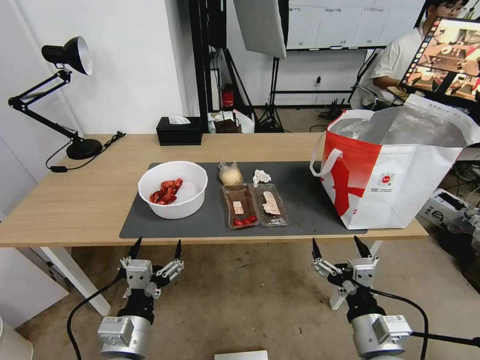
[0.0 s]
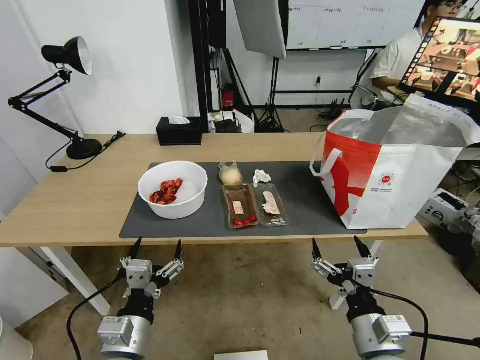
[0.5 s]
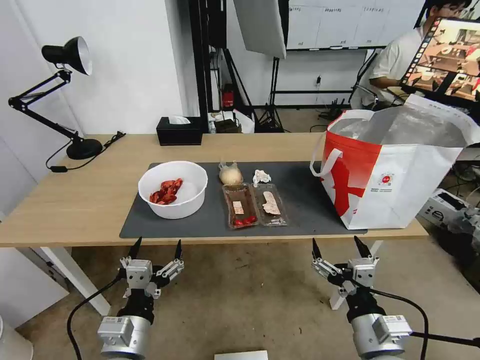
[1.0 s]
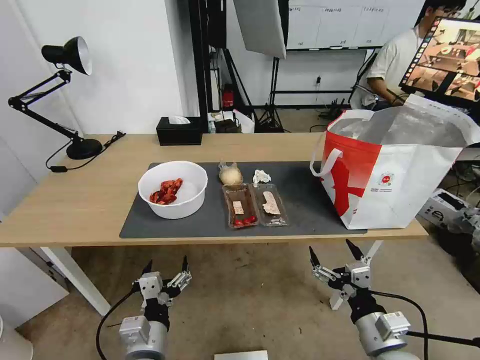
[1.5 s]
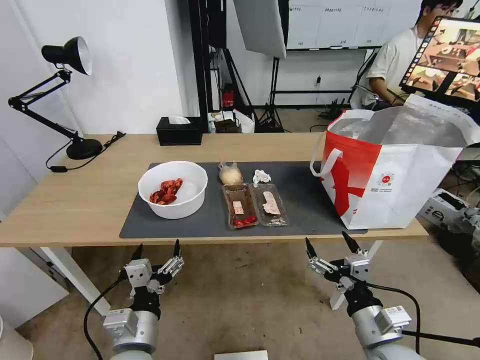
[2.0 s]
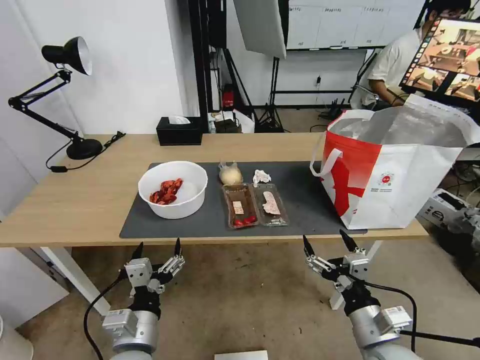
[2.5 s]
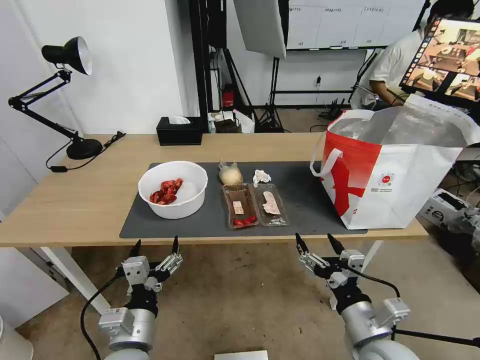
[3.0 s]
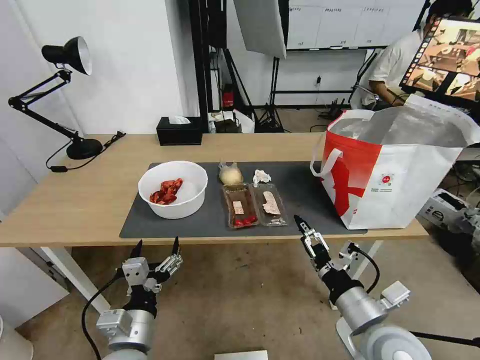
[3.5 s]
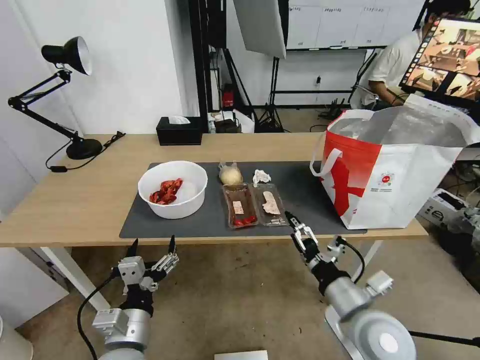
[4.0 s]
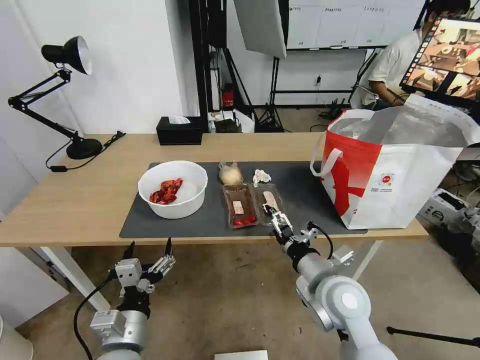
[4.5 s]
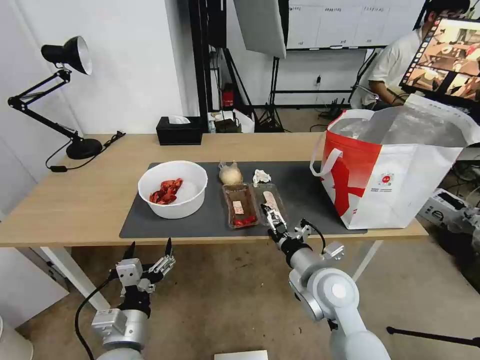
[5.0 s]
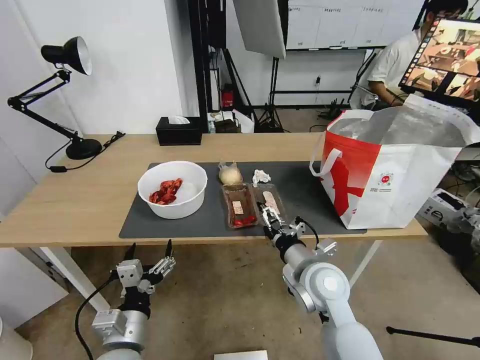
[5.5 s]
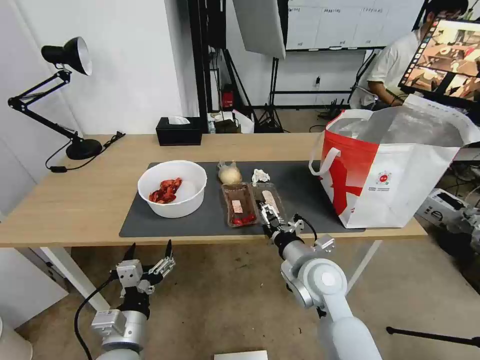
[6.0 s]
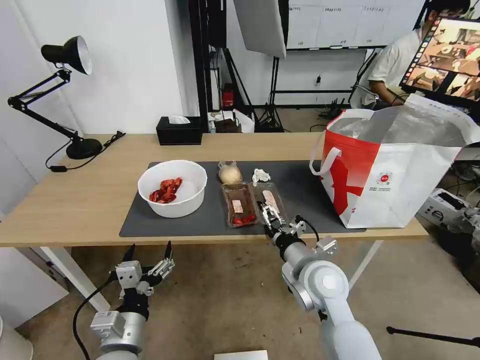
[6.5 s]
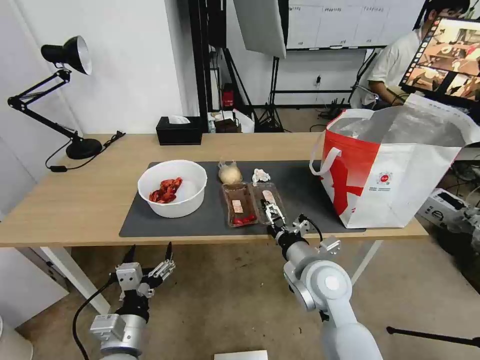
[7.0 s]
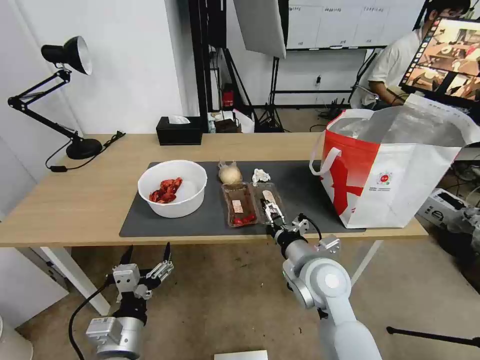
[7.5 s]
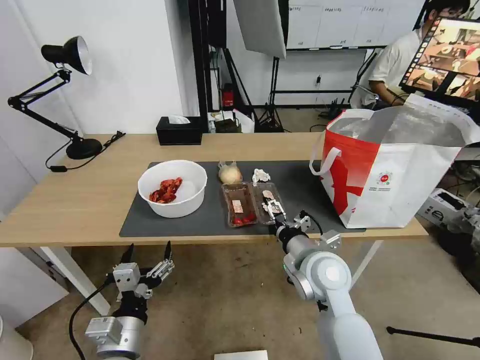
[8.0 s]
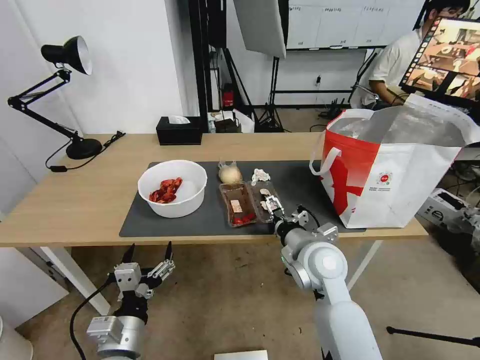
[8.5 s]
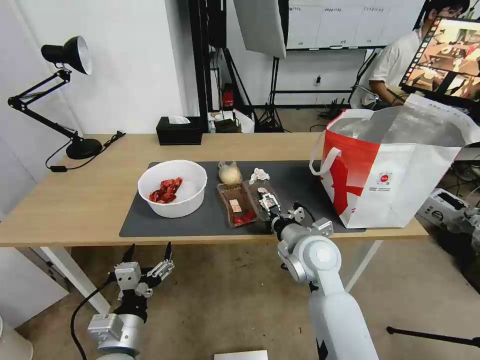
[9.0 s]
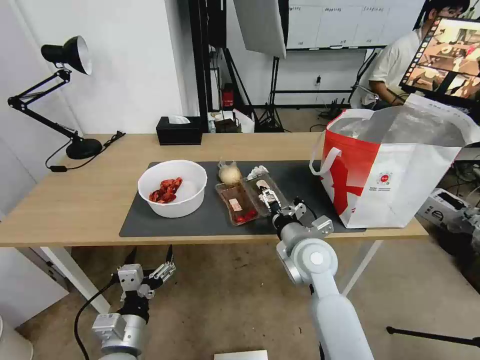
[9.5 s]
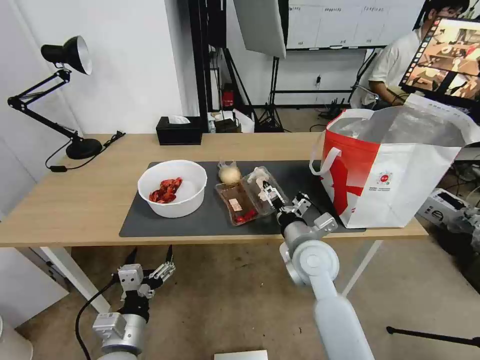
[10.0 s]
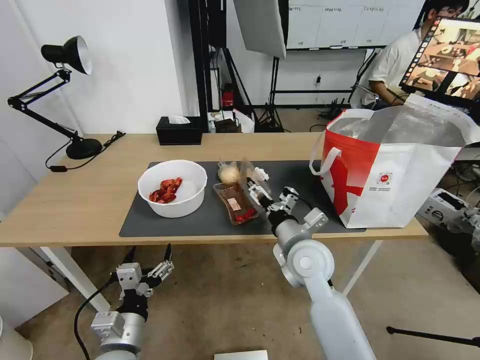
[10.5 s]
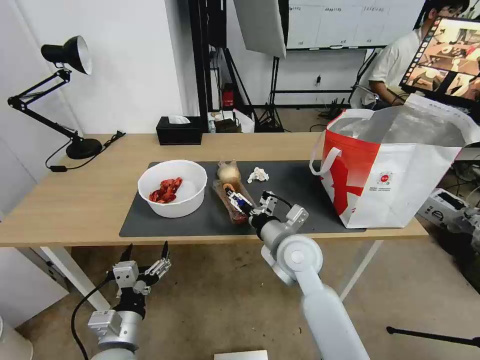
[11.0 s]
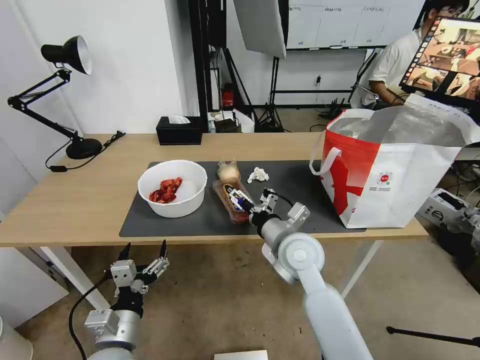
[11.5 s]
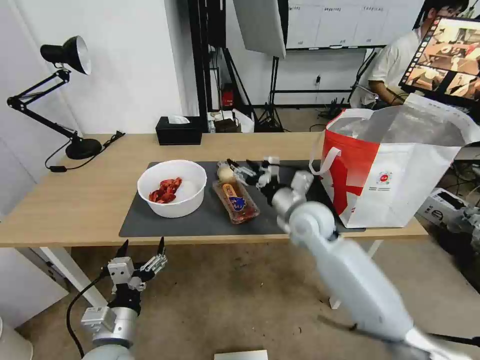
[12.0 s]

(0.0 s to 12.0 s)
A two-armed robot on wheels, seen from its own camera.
Task of the whole recording: Pick up the trash from the table and place it into the takeout bag.
2.0 s - 4.0 s: The right gripper moves some 5 cm.
4.0 s - 6.0 s: The right gripper heads forward and to the left, covering about 10 cm.
6.0 s - 8.0 s: The grippers make only small movements.
10.0 s - 12.0 s: The right gripper moves forward, approximately 10 cm.

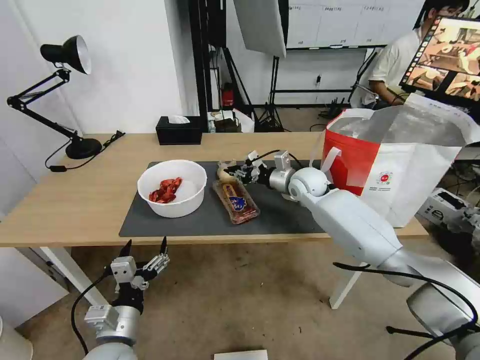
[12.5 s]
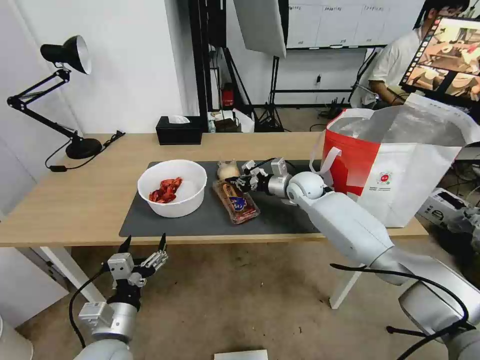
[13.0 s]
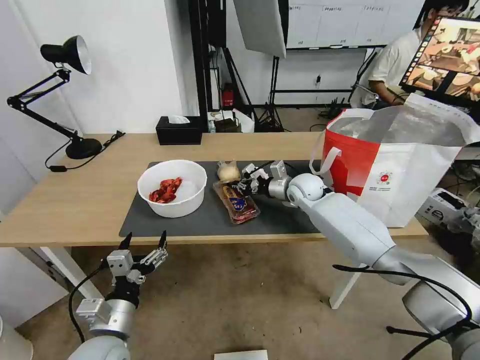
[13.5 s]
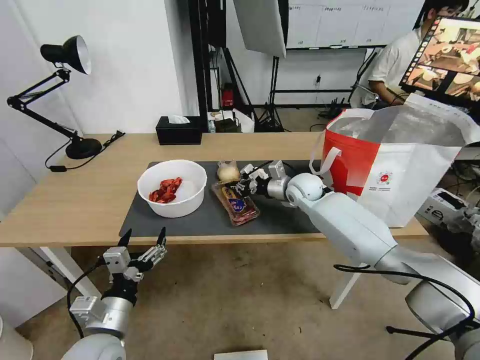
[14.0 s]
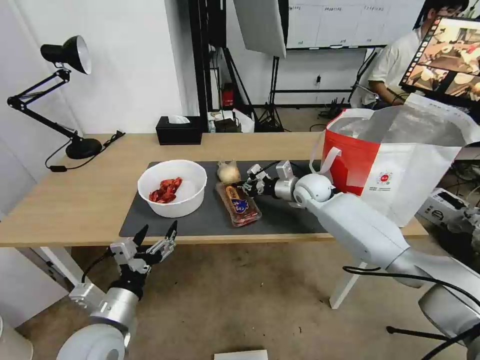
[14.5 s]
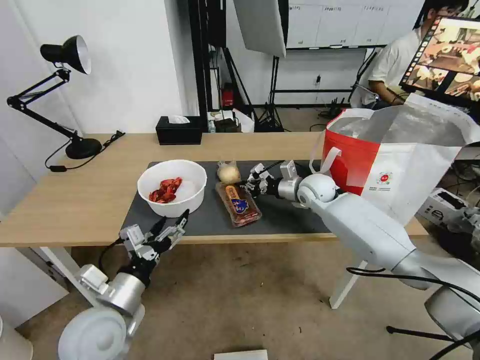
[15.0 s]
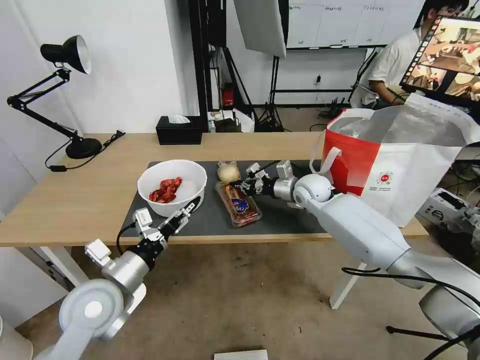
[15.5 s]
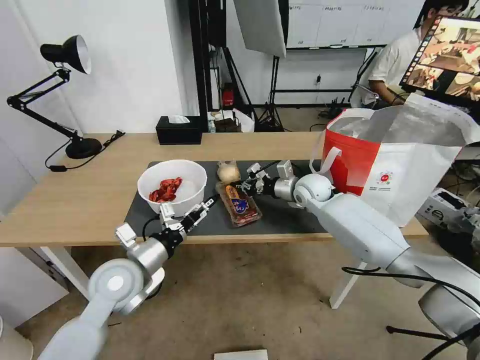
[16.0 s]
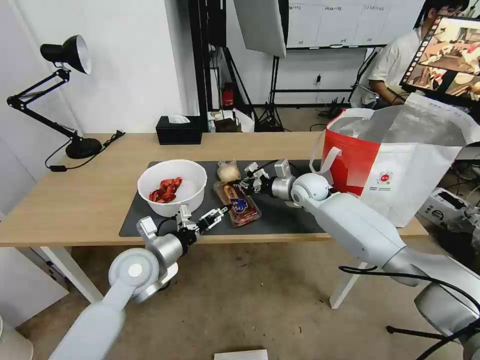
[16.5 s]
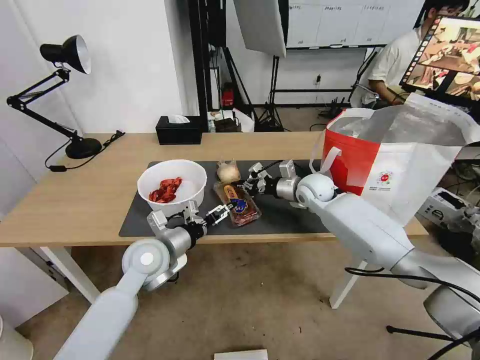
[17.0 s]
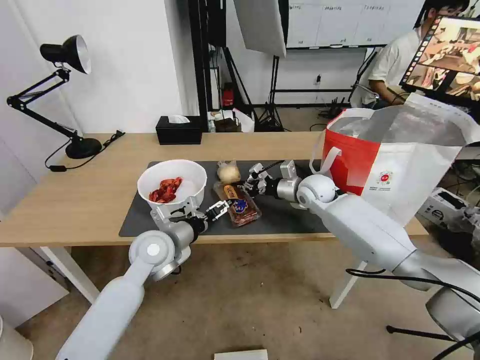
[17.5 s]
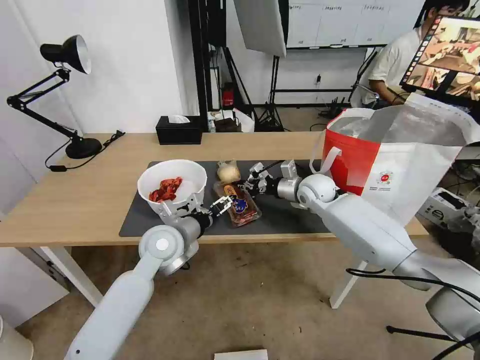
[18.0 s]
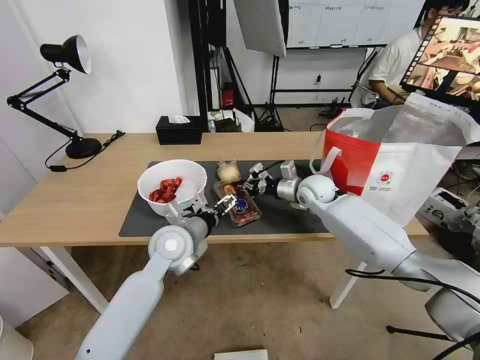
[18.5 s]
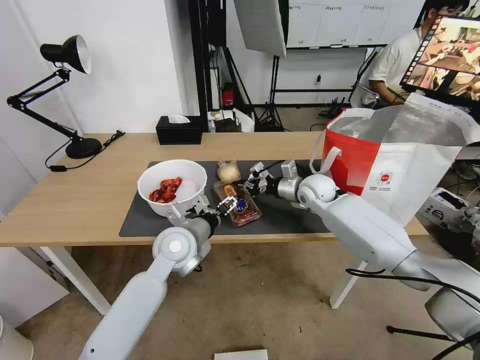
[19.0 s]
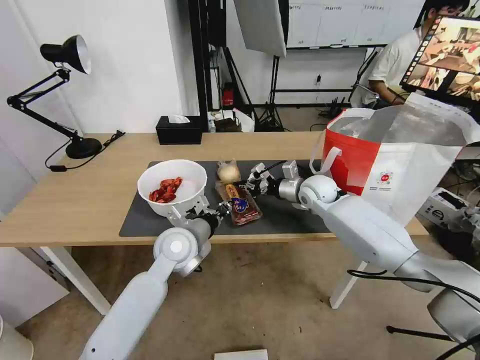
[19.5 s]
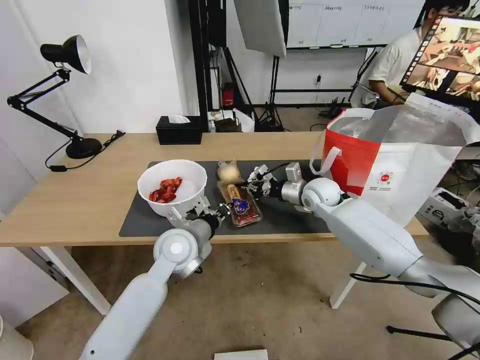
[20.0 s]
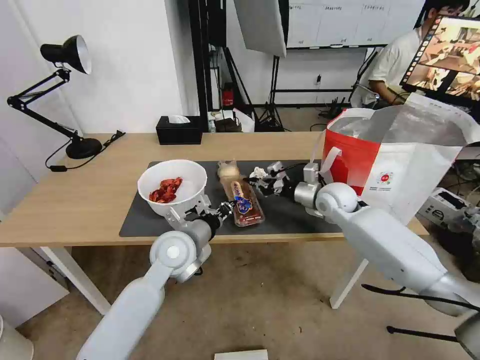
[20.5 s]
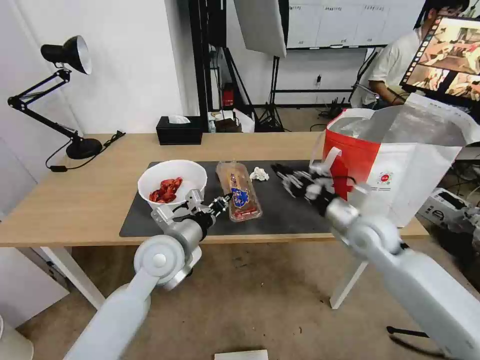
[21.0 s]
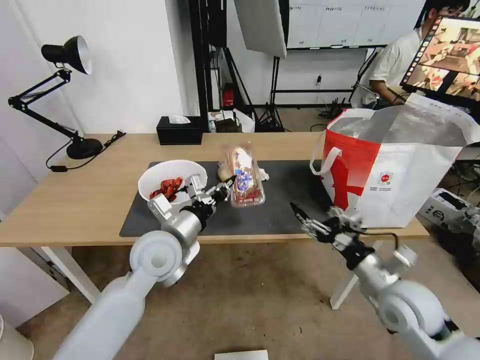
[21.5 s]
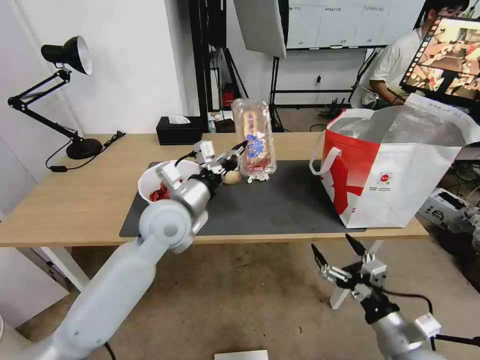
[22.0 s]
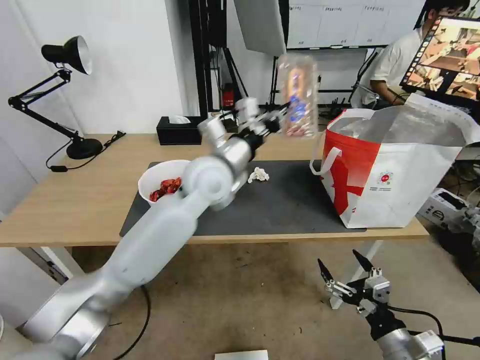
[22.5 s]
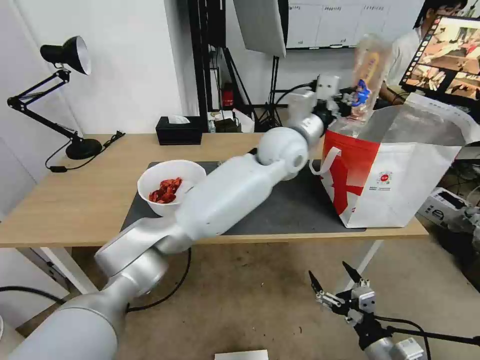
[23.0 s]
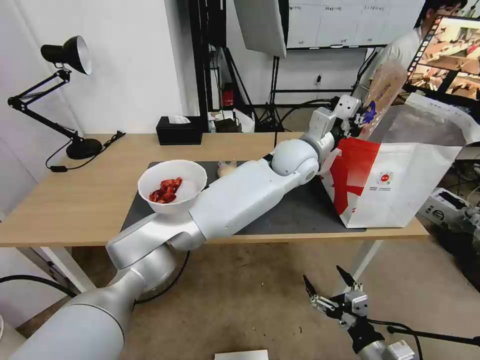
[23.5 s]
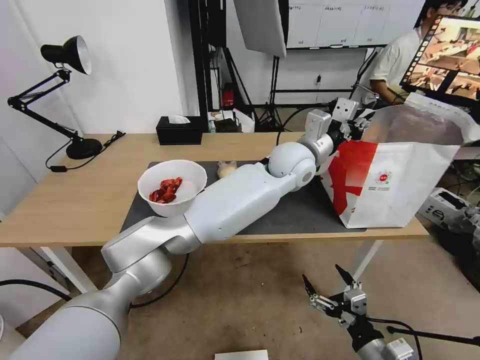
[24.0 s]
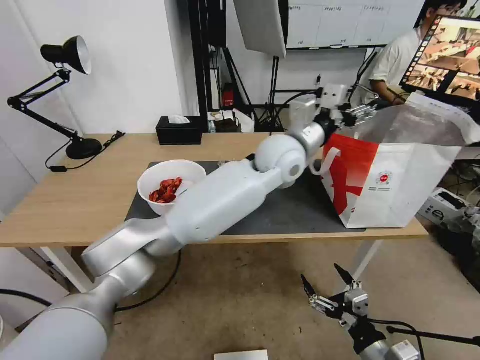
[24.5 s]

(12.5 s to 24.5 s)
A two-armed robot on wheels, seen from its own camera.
Task of the whole recording: Pick up the trash from the table and place it into the takeout bag.
12.5 s - 14.5 s: The grippers move only a little.
14.5 s - 16.5 s: The left gripper goes approximately 15 cm forward.
16.5 s - 18.5 s: The left gripper heads to the right and forward, covering roughly 10 cm.
18.5 s - 20.5 s: The left gripper closes; the right gripper shifts by about 5 cm.
20.5 s - 22.5 s: The right gripper travels backward by some 40 cm, and opens up; the left gripper moves upward, forward and to the right, approximately 20 cm.
22.5 s - 24.5 s: The left gripper is displaced to the right by some 15 cm, and opens its fingers.

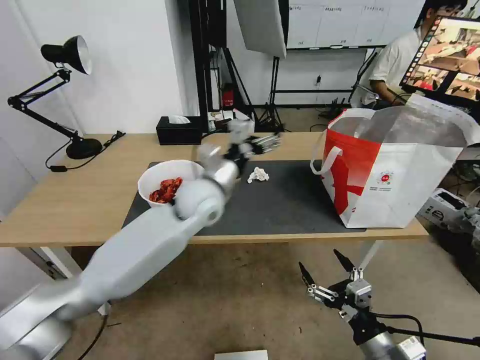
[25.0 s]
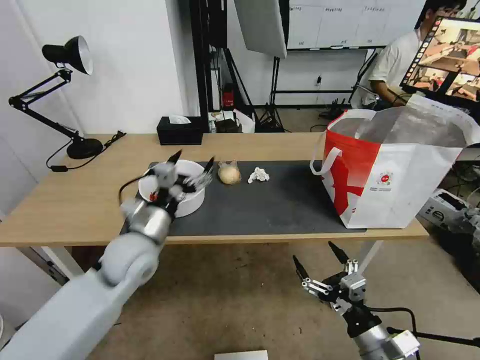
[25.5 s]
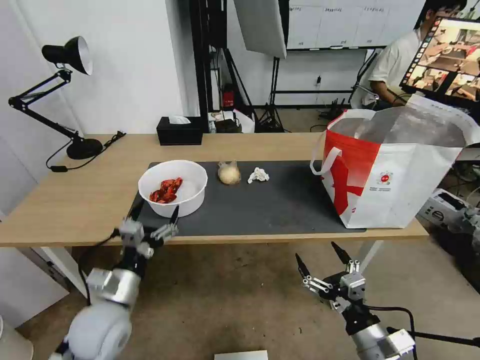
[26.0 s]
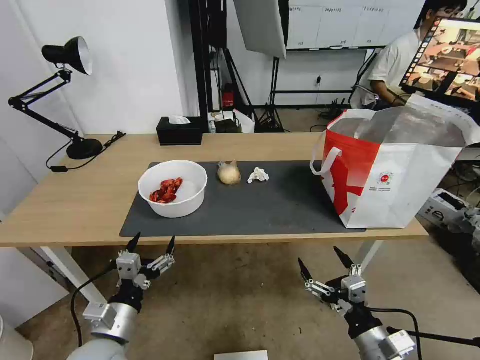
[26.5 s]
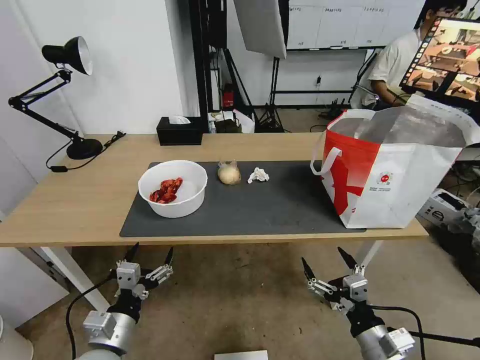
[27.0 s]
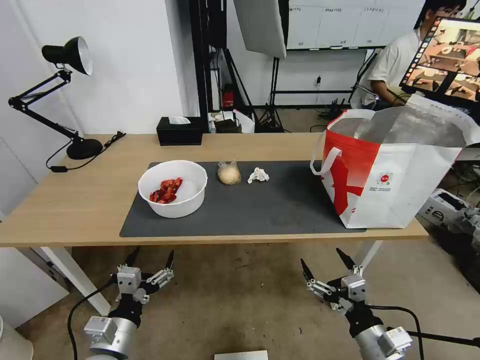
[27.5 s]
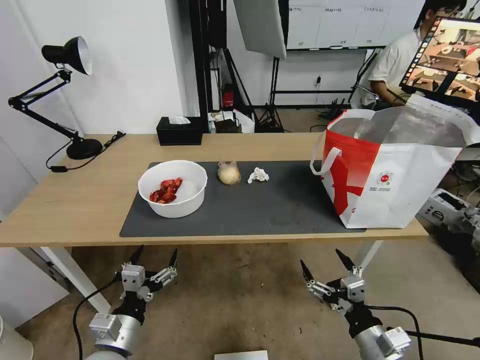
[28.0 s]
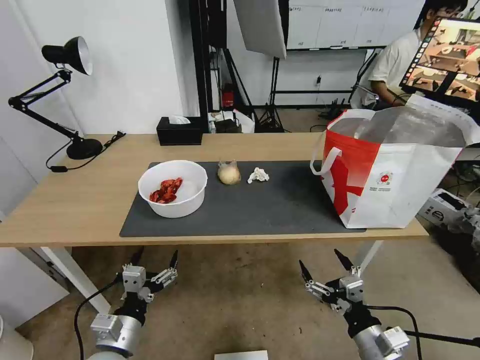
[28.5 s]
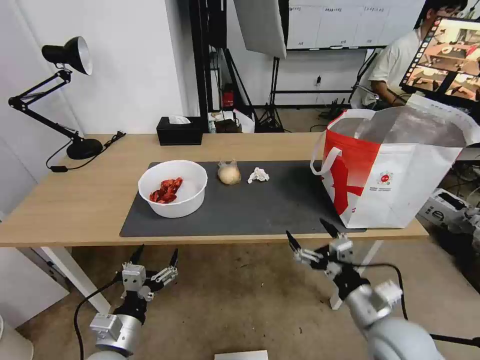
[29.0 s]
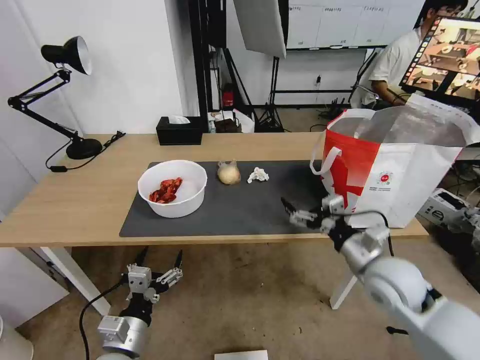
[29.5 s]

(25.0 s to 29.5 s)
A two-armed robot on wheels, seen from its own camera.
Task of the whole recording: Pick up the trash from the table and place it into the takeout bag.
25.0 s - 27.0 s: The left gripper heads backward, to the left and downward, covering approximately 35 cm.
27.0 s - 29.5 s: The right gripper heads forward and upward, covering some 20 cm.
